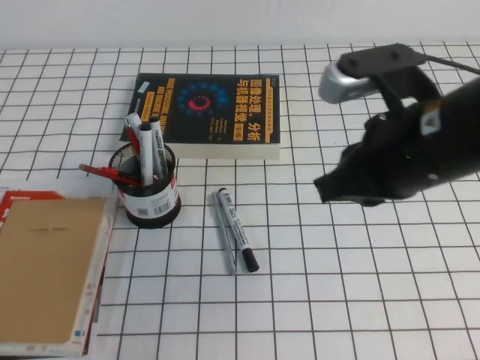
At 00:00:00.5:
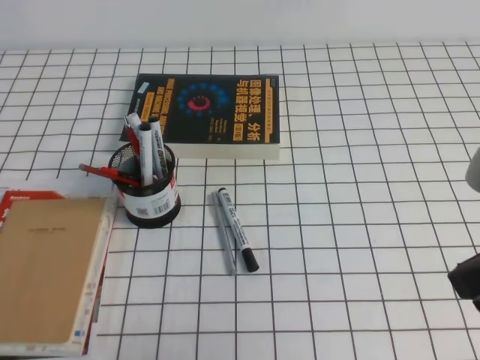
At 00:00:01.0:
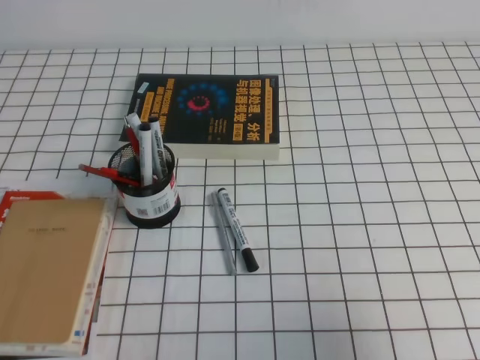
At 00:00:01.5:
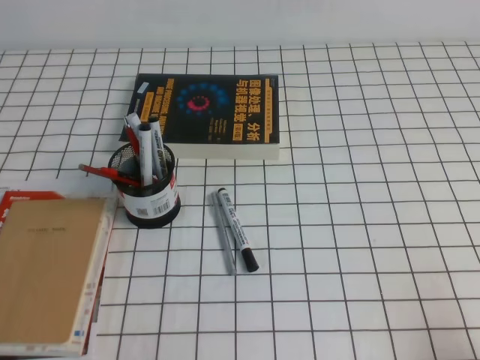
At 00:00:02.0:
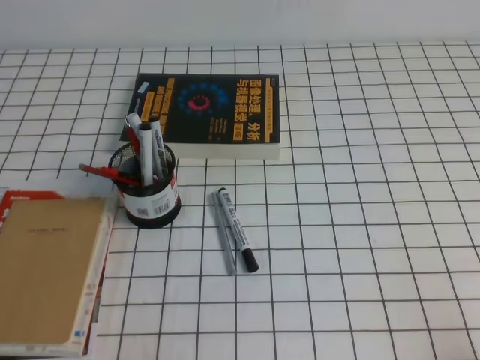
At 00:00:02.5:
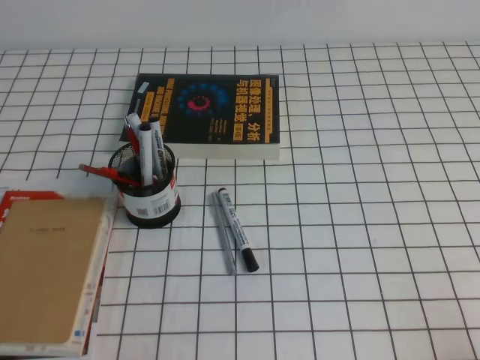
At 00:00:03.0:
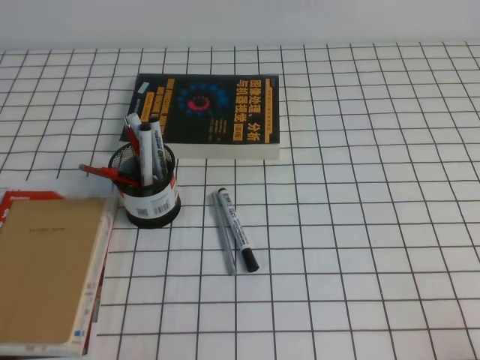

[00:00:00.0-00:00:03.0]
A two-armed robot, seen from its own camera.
Step, 00:00:00.0 to 00:00:03.0: Pick up the pen from the pen holder.
00:00:00.0 to 00:00:01.5: The right gripper is displaced to the right, backward and downward by some 30 cm.
